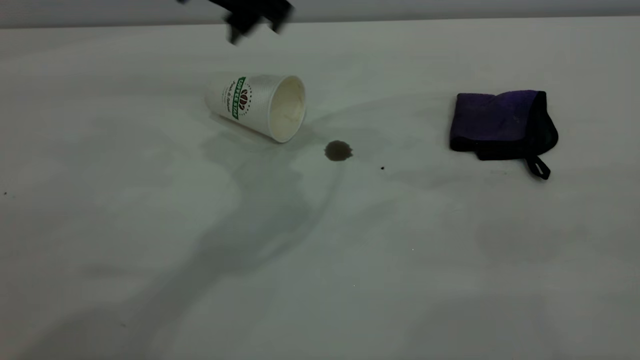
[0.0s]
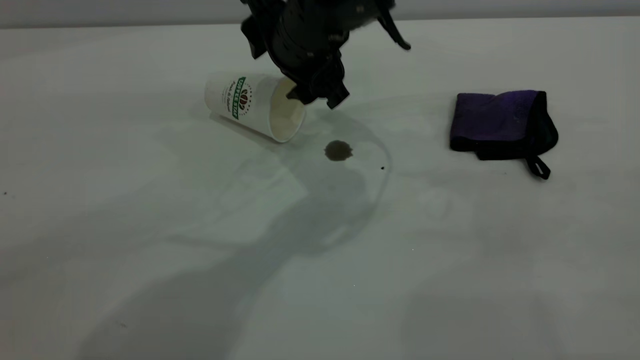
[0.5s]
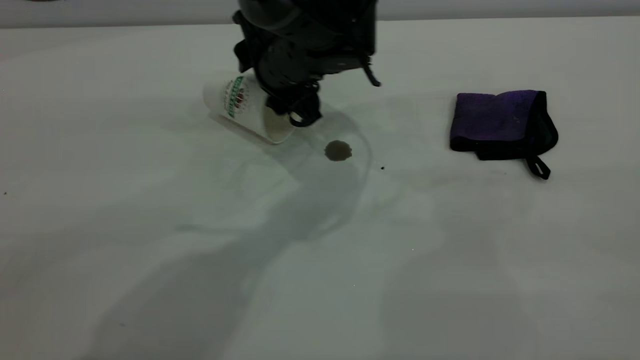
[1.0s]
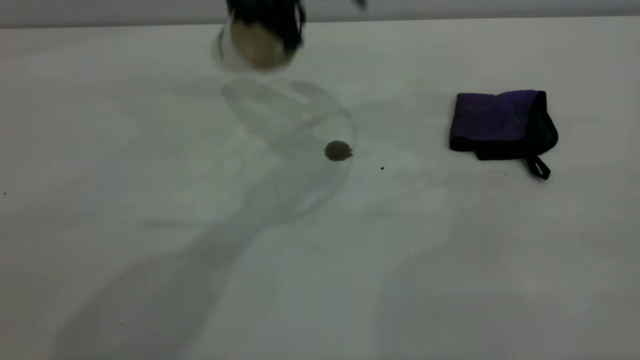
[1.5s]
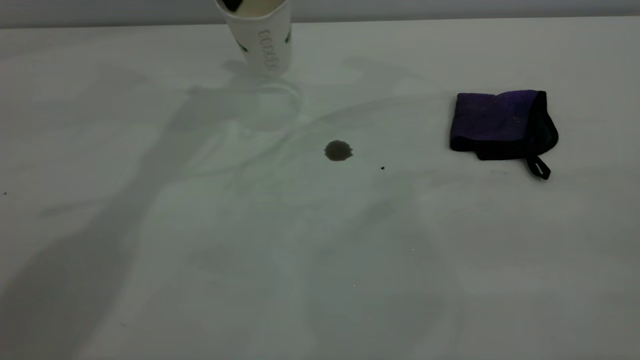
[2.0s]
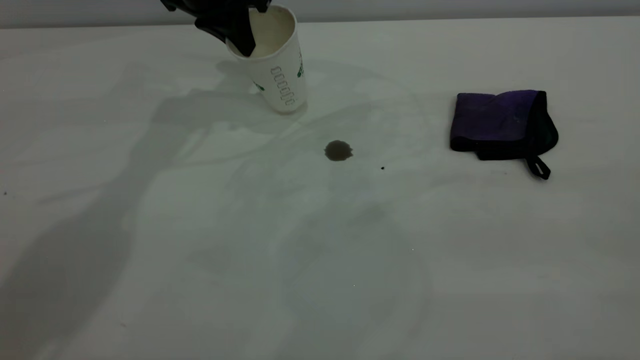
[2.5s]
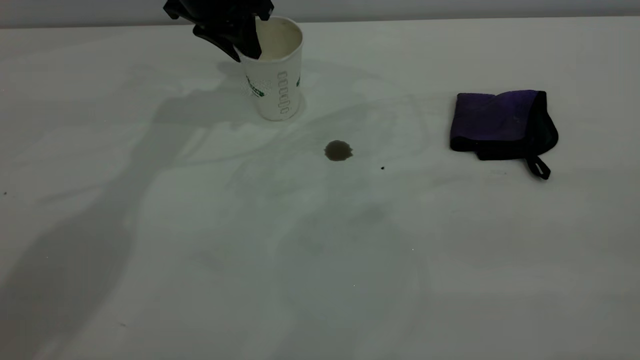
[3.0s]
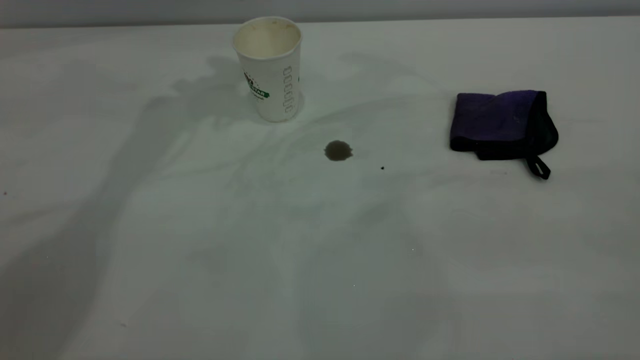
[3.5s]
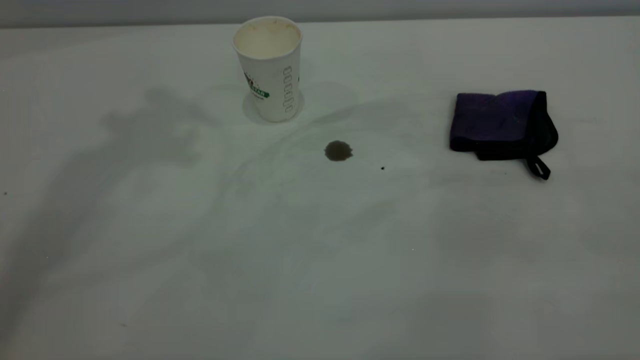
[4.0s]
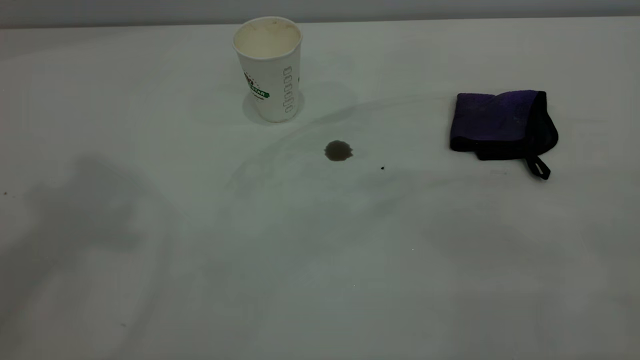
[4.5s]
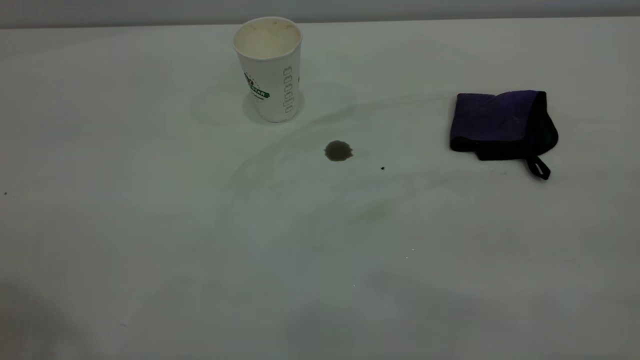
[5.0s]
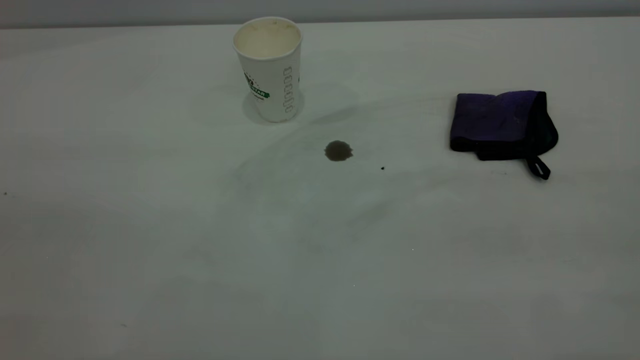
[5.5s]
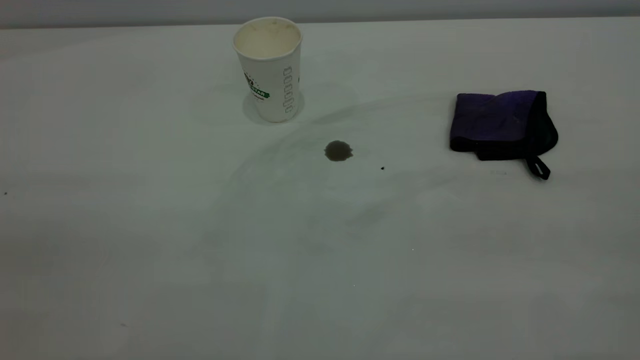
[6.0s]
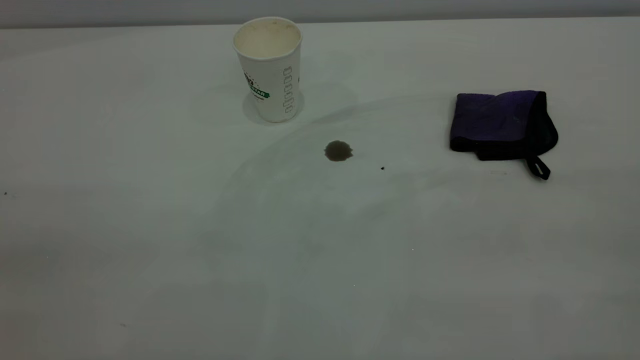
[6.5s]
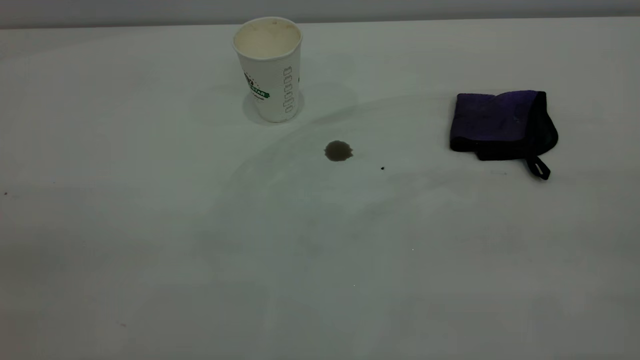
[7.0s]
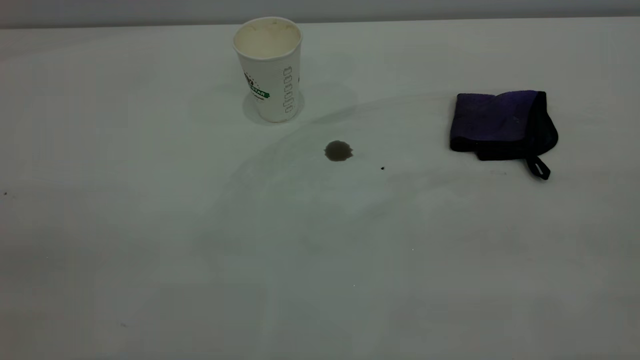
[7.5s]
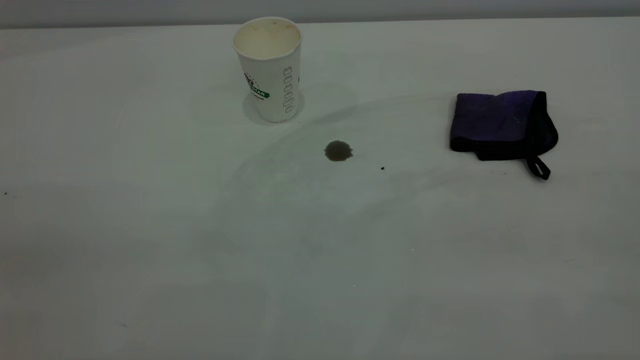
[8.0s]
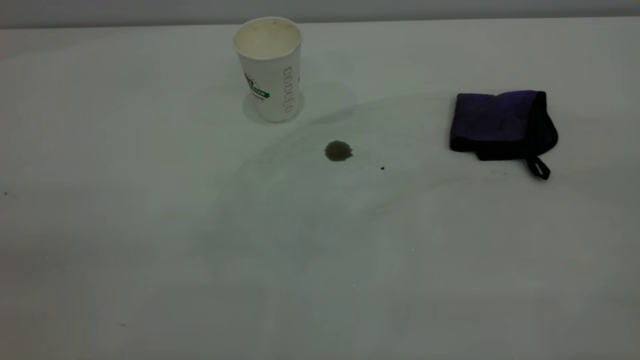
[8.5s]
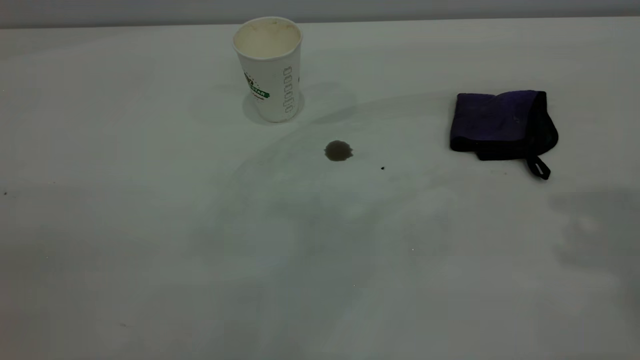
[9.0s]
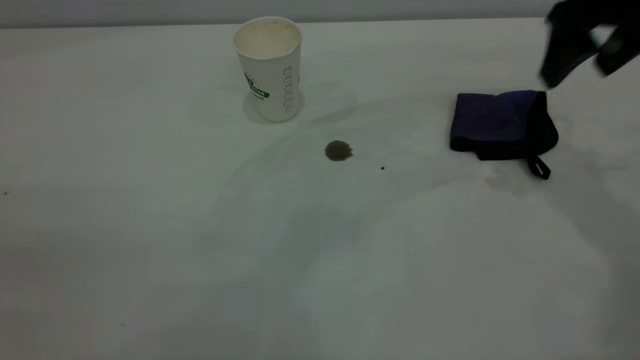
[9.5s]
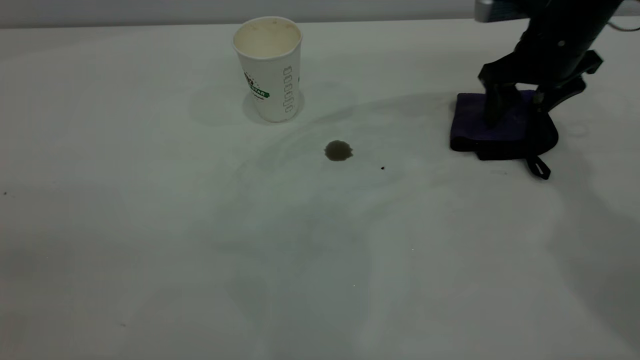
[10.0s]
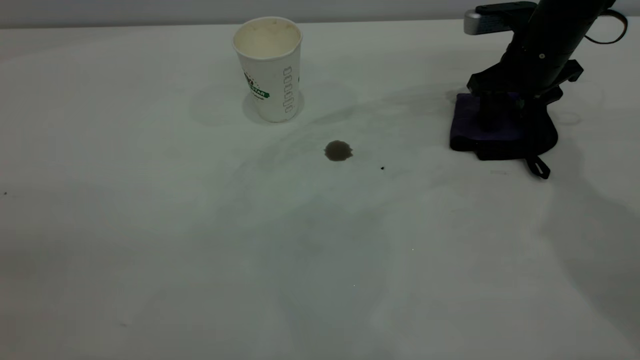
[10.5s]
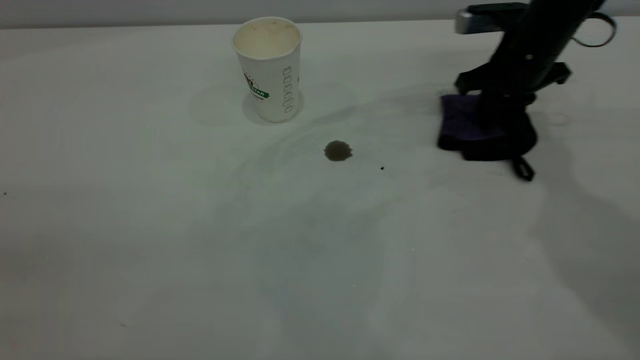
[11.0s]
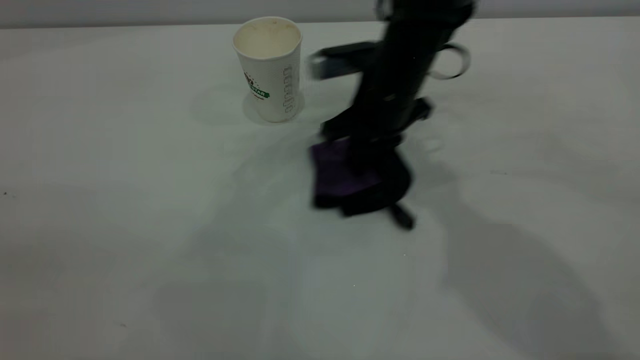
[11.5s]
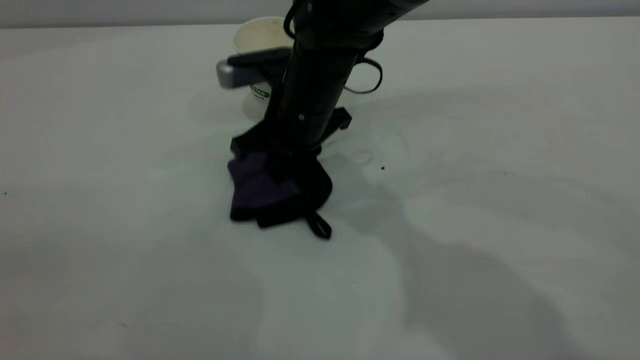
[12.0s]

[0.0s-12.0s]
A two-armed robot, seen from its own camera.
Task of the whole recording: the left gripper pick up the fallen cup and place it upright, the right gripper grasp the purple rag and wipe the coffee stain on the table, the right gripper put the purple rag back in its original position.
Step, 0.0s to 3.0s: Stand the paper cup upright.
0.0s to 2.0s: The left gripper shifts about 15 cm forward and to the left, and closes.
2.0s to 4.0s: The left gripper goes approximately 30 cm upward and backward, and opens.
8.0s to 10.0s: The right gripper shifts approximately 50 cm forward and downward, and opens up.
10.0s to 12.0s: The right gripper goes about 25 cm to the left, and closes its fingers.

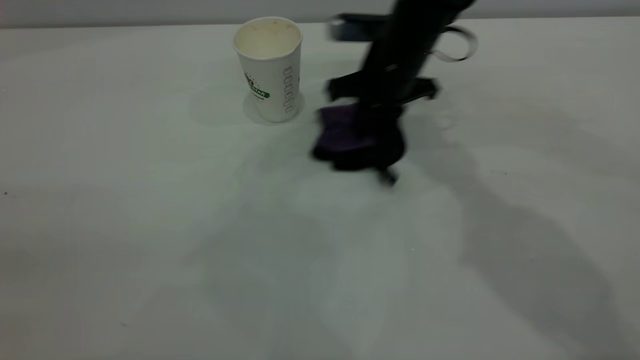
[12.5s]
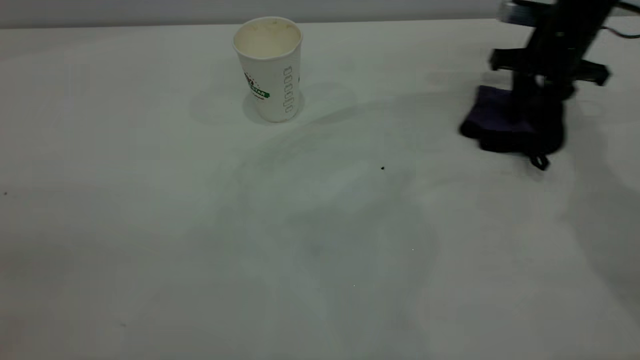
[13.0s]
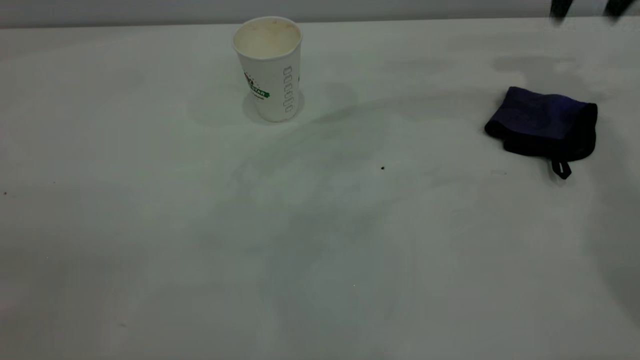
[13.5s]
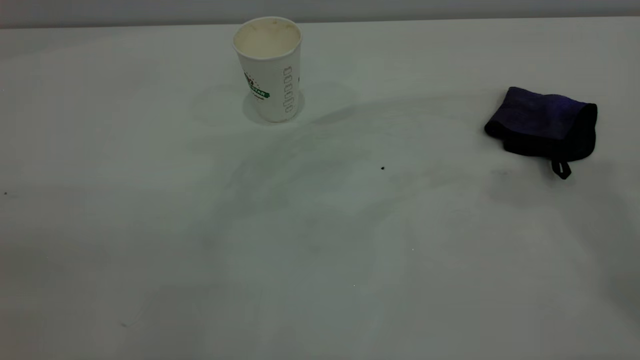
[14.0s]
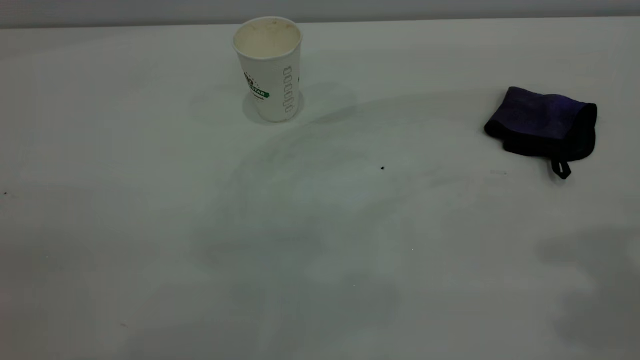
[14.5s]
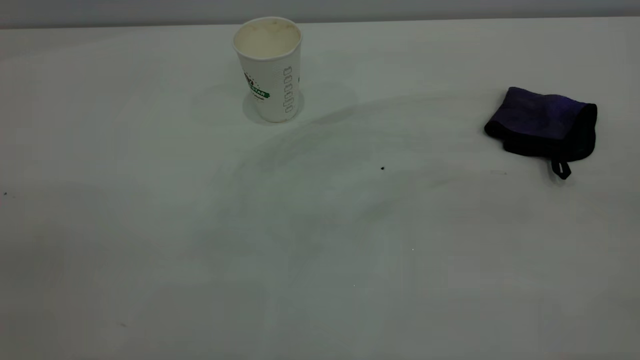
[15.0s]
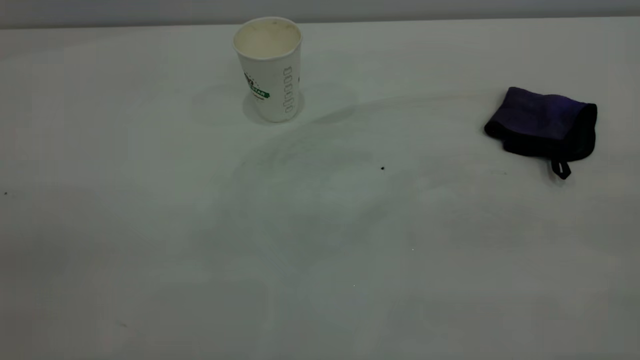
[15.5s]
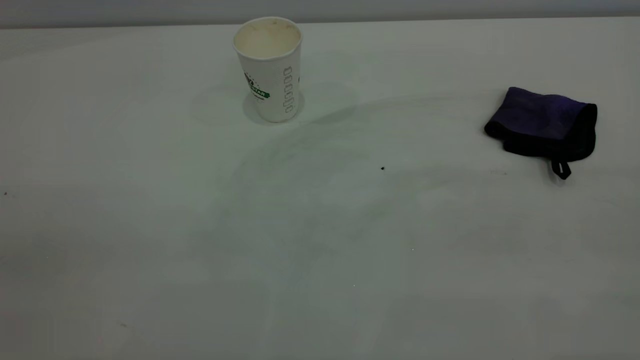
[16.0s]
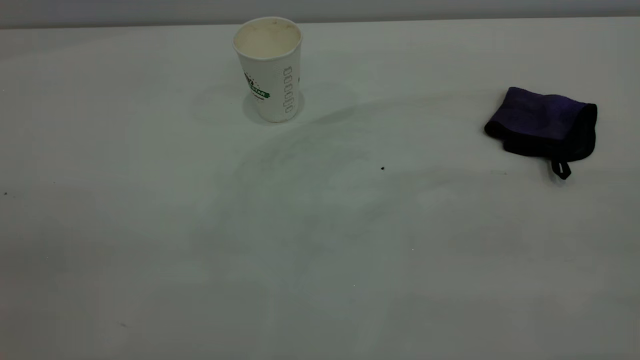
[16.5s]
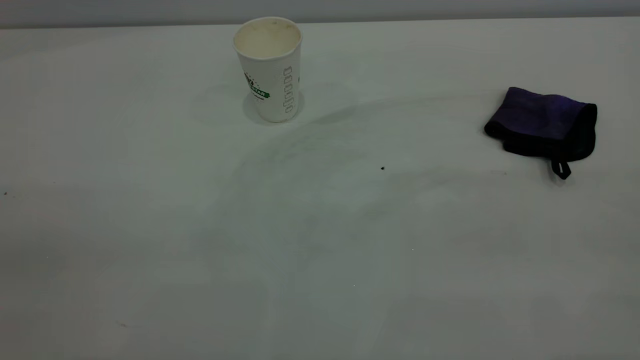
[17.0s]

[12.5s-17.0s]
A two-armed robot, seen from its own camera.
Task of the whole recording: the left gripper pick up the fallen cup and place it upright, the right gripper grasp the purple rag and wipe the coffee stain on the table, the right gripper put the purple rag back in its original position.
12.5s to 14.5s: The right gripper shifts about 50 cm upward, backward and to the right, and opens up.

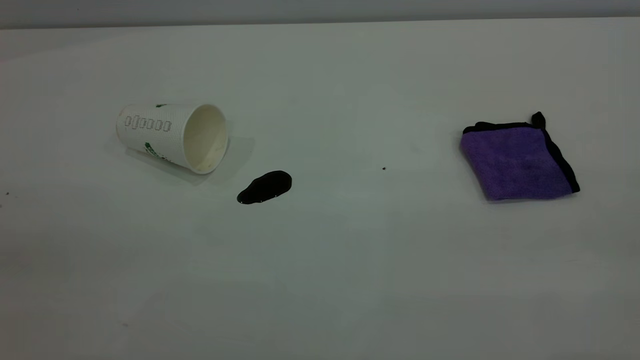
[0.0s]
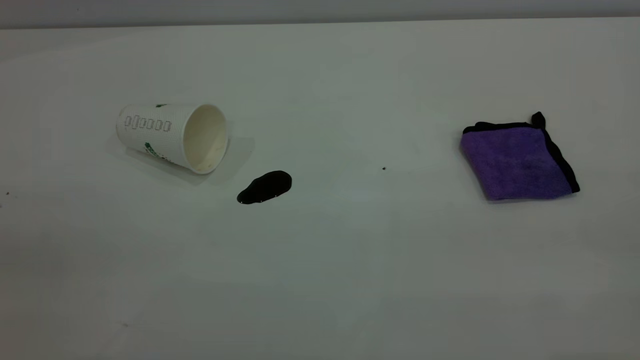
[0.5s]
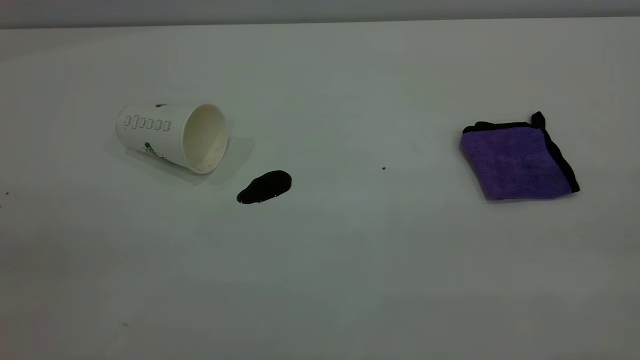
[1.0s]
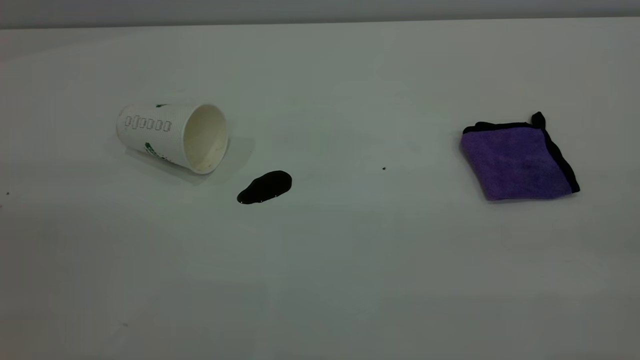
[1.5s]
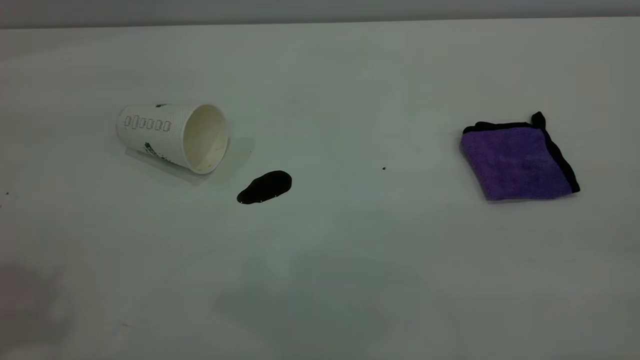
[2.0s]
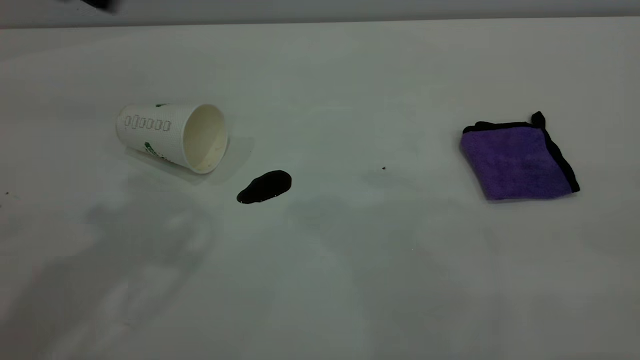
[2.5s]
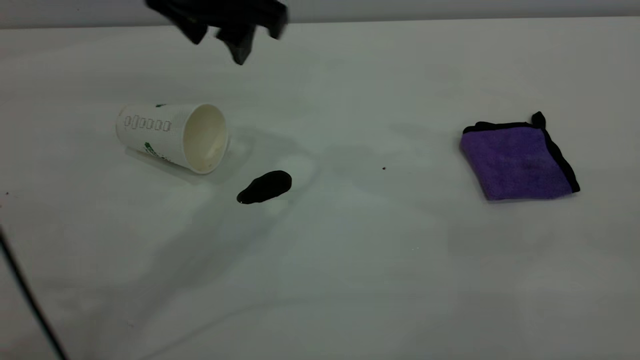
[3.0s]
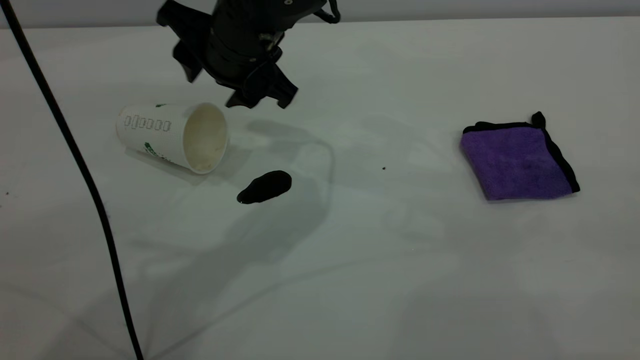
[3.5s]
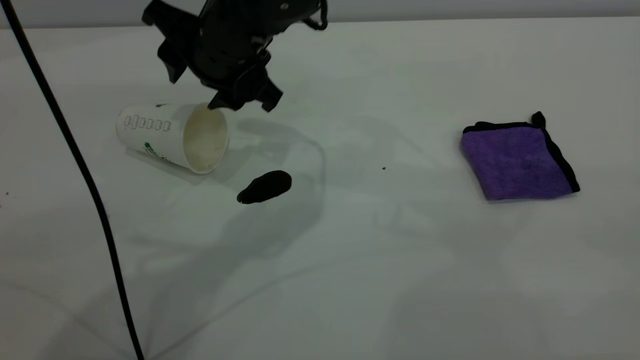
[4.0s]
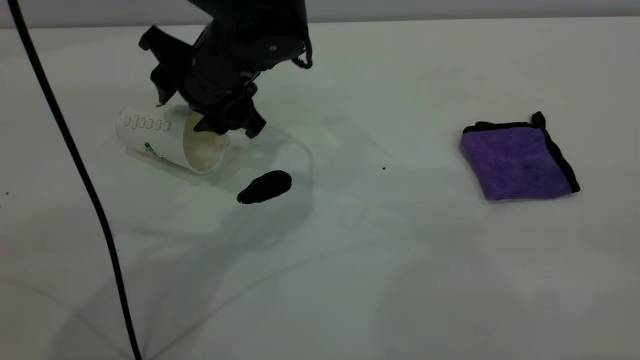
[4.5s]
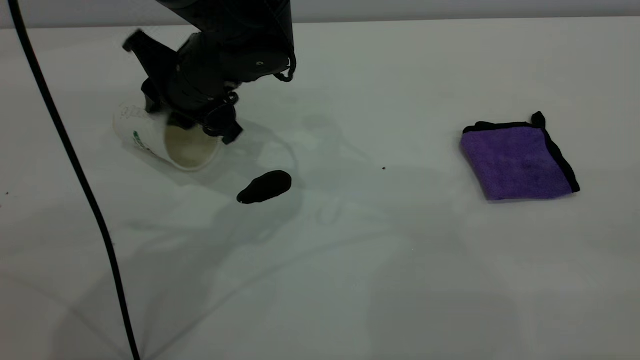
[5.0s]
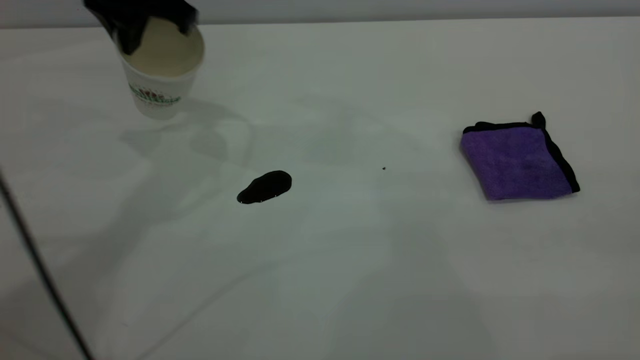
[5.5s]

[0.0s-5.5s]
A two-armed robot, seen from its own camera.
Task of the whole recording: the left gripper pick up the fallen cup and place it upright, the right gripper grasp the purple rag and wipe the coffee stain on the table, the right gripper put the purple rag back in its original position.
2.0s to 3.5s: The left gripper heads downward, to the right and forward, covering about 40 cm.
3.5s to 5.5s: The left gripper is displaced to the left and upward by about 15 cm, and closes.
